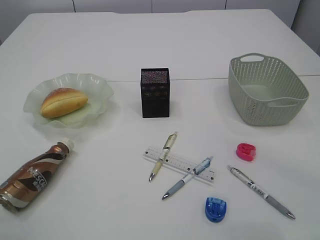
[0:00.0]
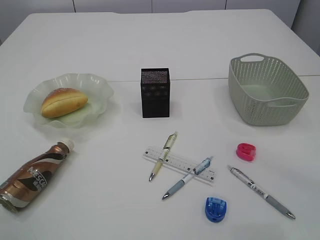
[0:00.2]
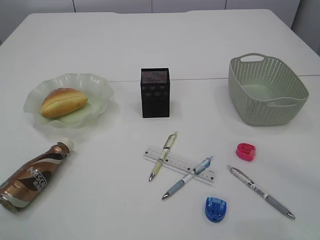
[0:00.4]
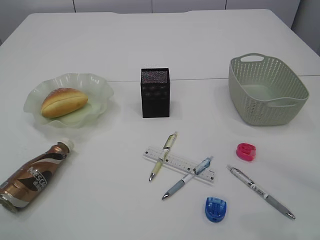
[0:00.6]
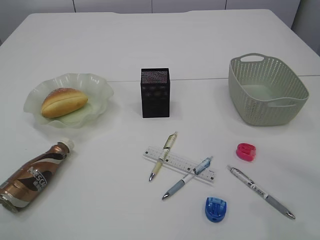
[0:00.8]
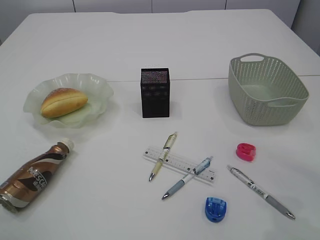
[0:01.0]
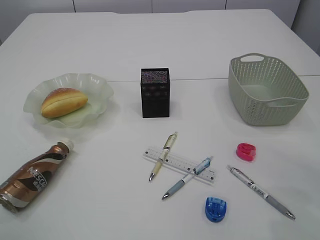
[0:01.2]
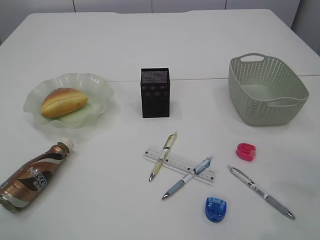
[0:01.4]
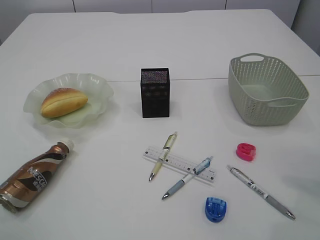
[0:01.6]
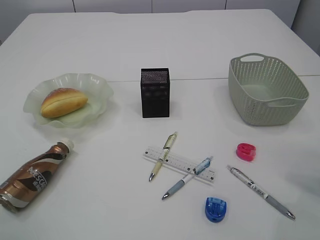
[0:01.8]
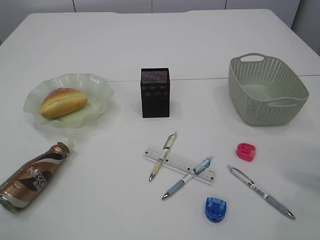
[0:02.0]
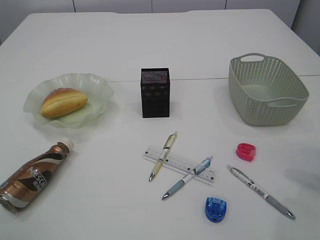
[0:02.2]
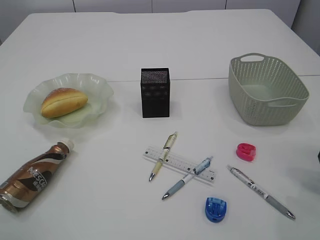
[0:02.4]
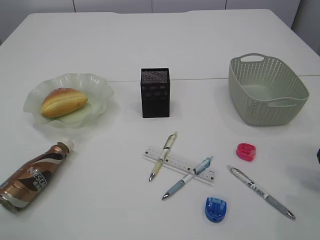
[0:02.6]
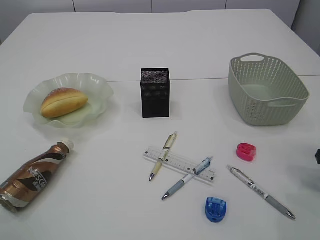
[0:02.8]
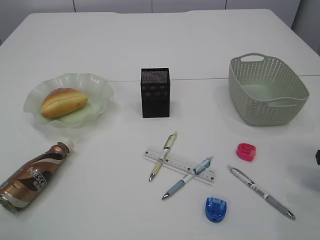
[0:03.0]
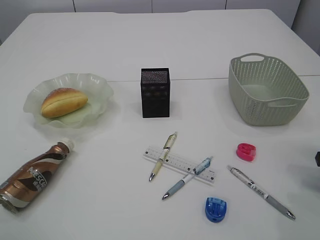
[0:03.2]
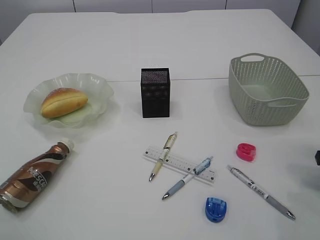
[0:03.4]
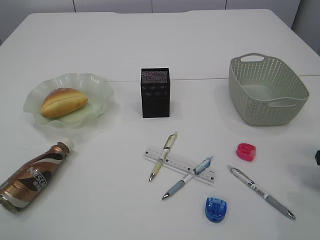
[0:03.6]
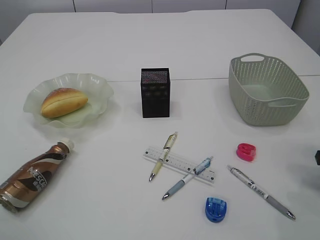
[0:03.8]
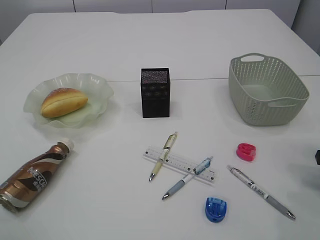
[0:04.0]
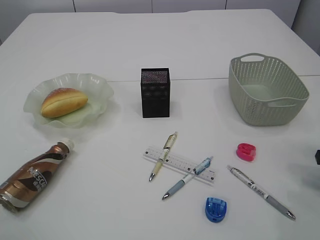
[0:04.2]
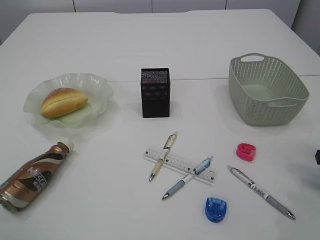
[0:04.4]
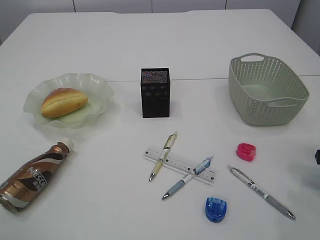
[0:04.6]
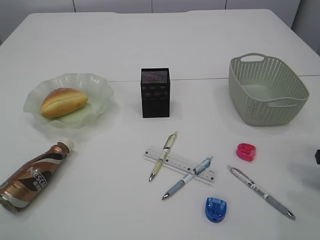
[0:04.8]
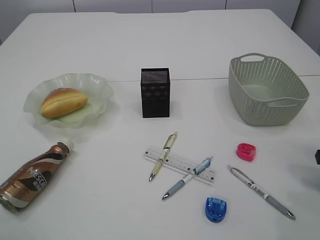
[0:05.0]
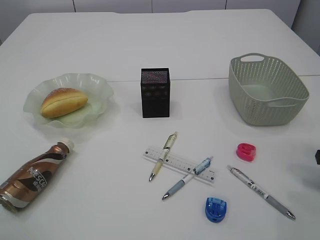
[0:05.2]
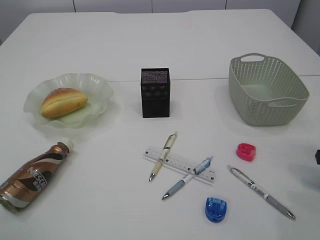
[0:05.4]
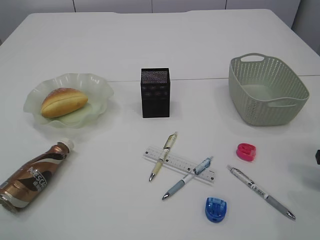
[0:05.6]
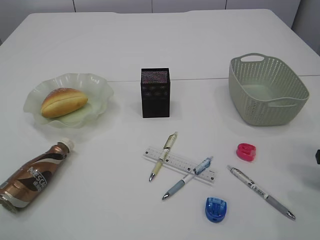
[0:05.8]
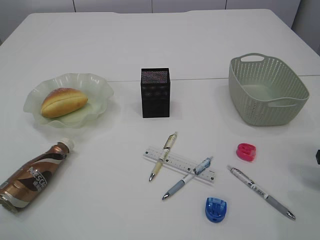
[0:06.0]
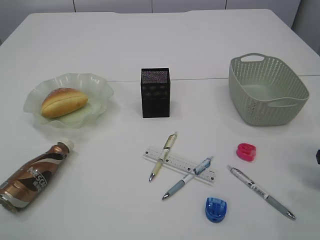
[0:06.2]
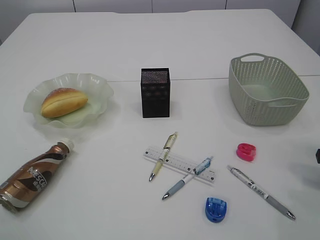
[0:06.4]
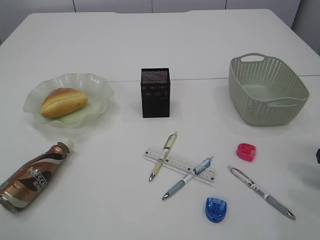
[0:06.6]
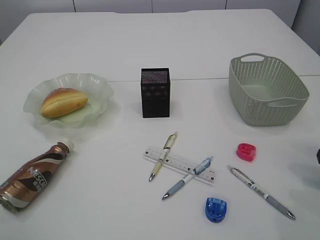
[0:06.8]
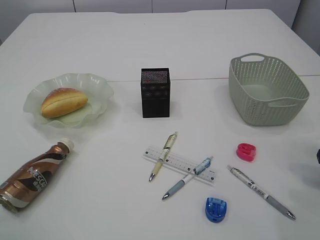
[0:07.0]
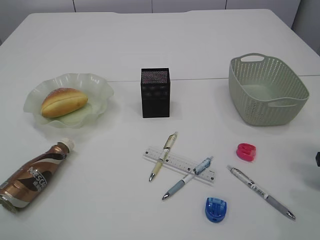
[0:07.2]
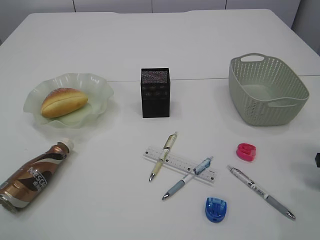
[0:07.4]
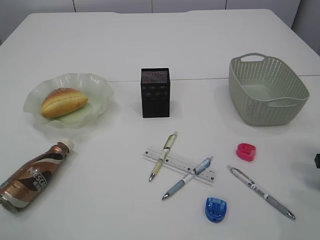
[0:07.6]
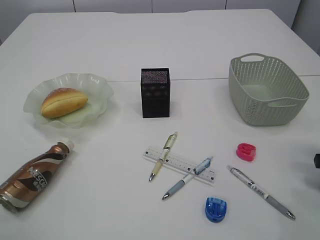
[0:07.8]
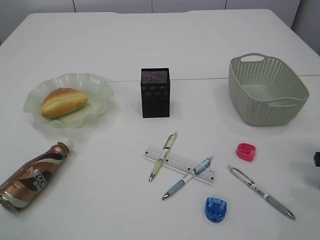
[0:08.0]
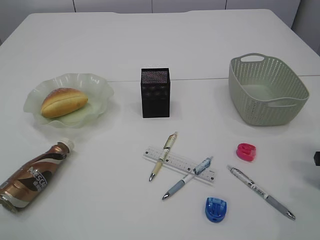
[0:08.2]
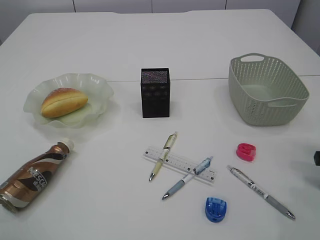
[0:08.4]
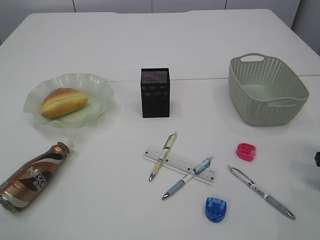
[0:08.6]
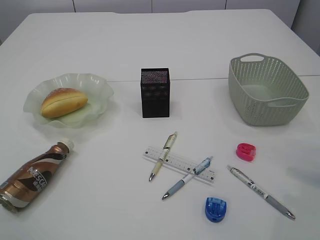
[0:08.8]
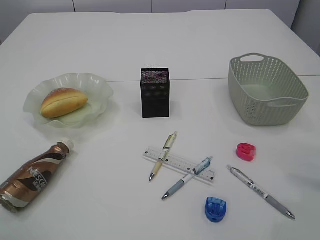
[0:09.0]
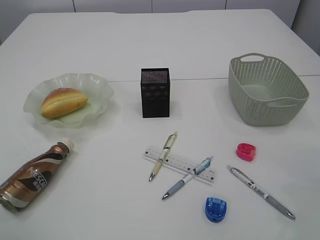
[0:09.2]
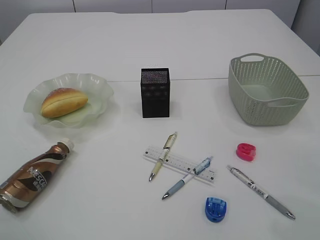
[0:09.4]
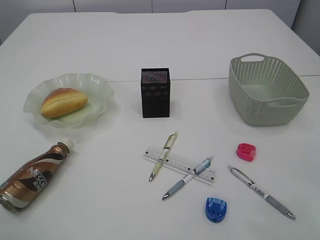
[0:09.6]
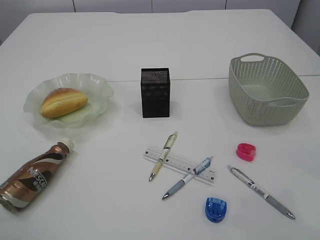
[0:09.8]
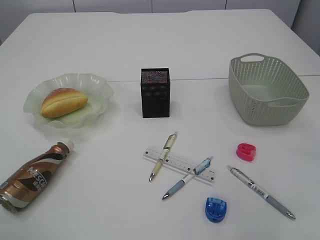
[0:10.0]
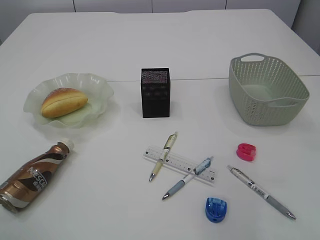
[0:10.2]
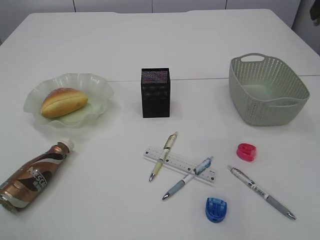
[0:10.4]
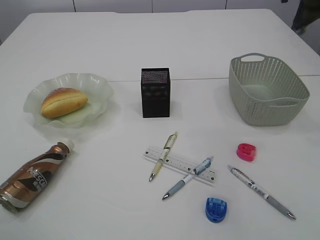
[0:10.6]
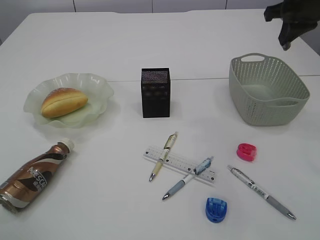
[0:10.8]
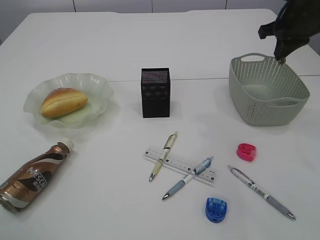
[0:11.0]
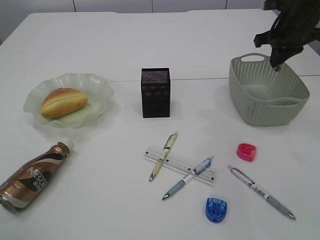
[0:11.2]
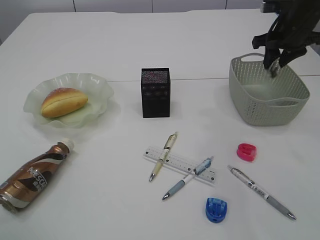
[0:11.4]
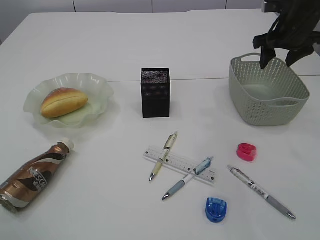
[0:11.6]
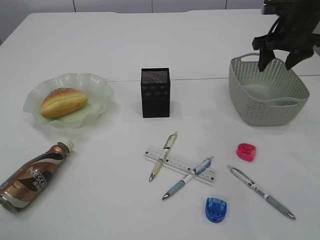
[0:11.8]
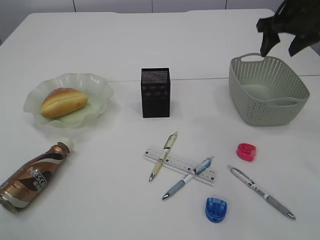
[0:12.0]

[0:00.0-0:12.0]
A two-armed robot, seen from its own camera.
0:03.0 to 0:07.6: Both grippers stay about where they are.
0:09.0 to 0:10.4: The right gripper heads upward and forward, covering roughly 25 cm.
0:10.4 to 0:12.0: The right gripper travels downward and forward by some 10 cm, and opens its fingers.

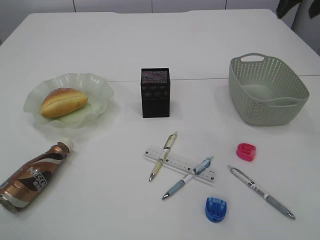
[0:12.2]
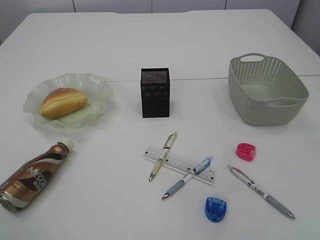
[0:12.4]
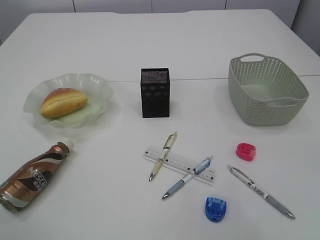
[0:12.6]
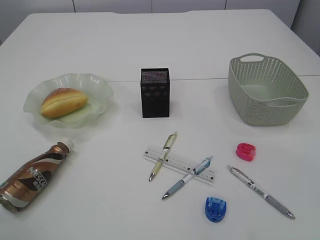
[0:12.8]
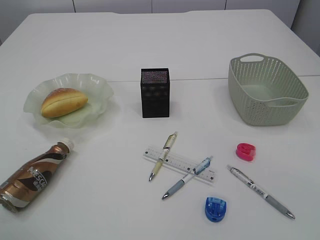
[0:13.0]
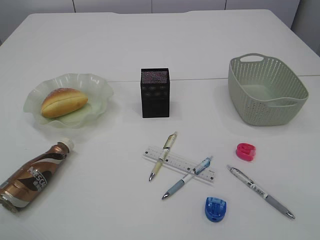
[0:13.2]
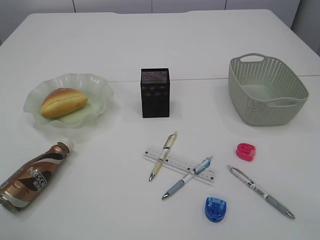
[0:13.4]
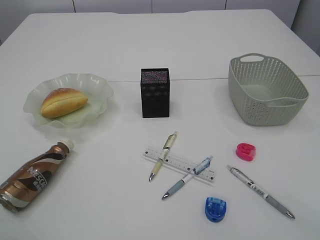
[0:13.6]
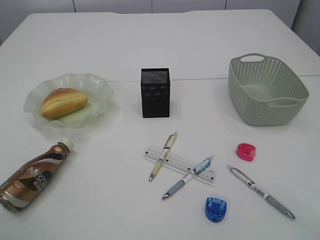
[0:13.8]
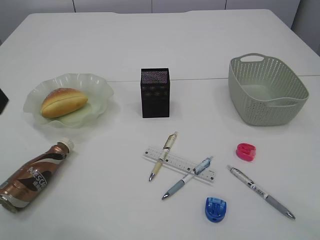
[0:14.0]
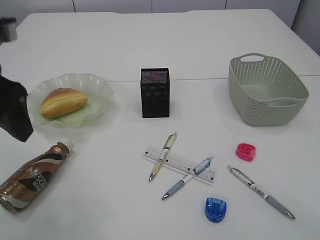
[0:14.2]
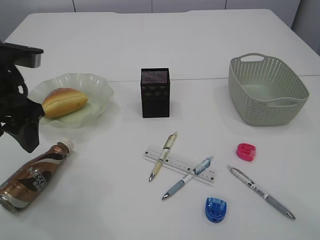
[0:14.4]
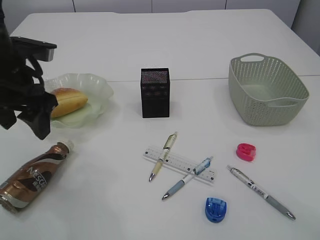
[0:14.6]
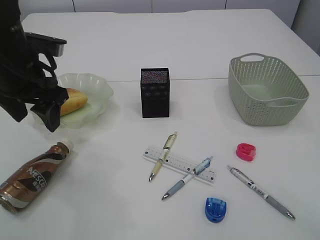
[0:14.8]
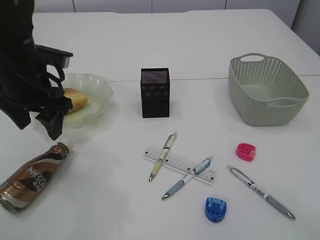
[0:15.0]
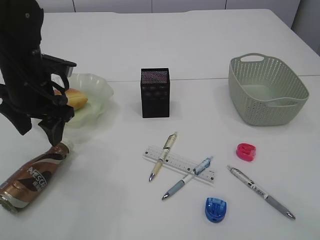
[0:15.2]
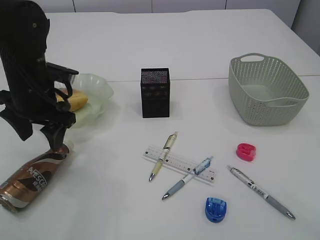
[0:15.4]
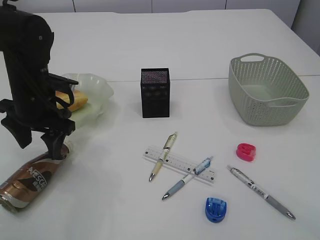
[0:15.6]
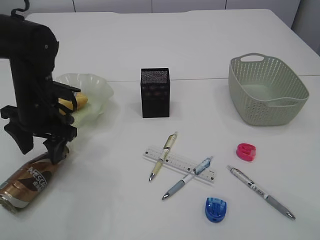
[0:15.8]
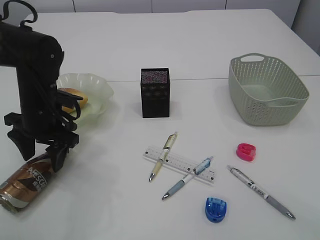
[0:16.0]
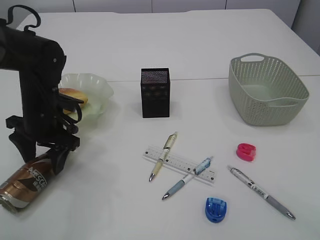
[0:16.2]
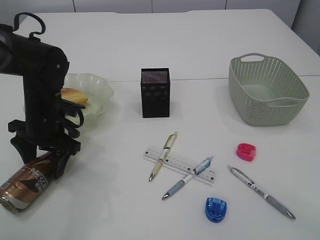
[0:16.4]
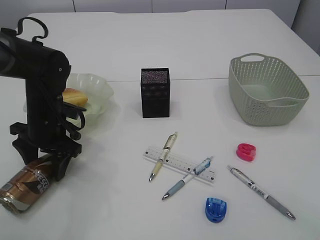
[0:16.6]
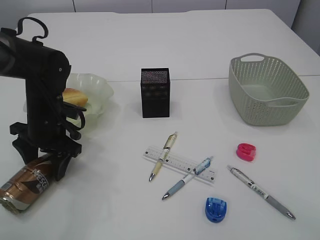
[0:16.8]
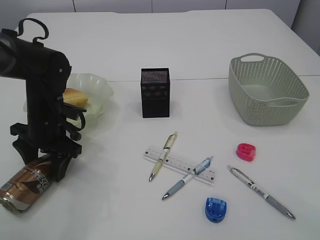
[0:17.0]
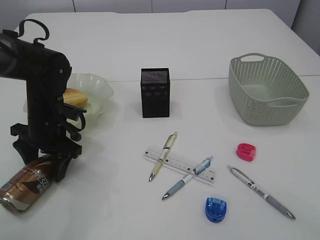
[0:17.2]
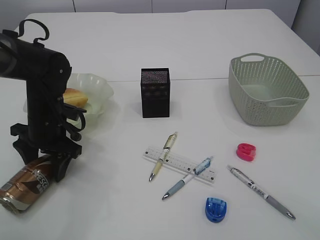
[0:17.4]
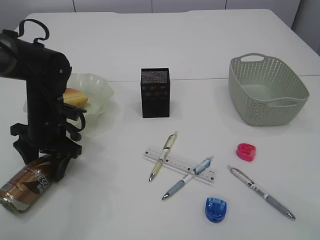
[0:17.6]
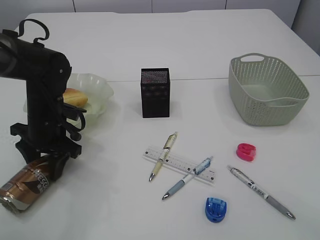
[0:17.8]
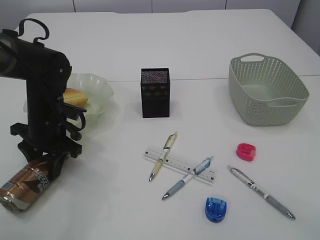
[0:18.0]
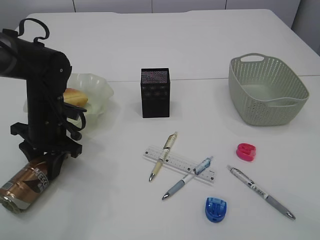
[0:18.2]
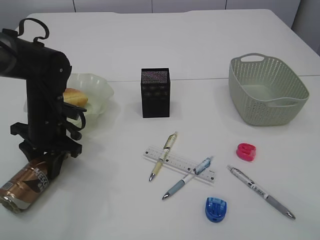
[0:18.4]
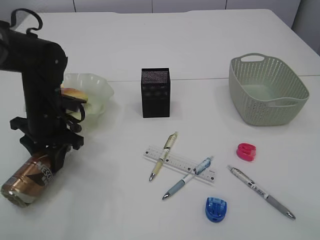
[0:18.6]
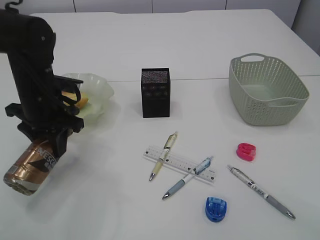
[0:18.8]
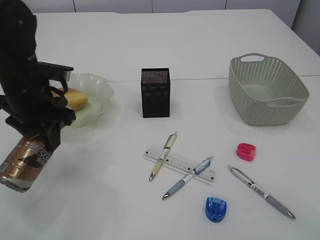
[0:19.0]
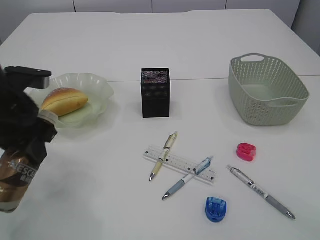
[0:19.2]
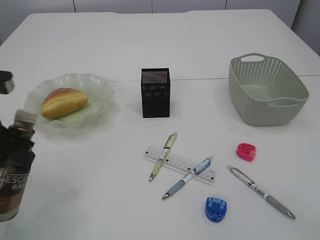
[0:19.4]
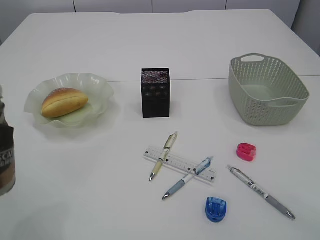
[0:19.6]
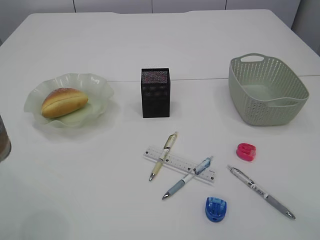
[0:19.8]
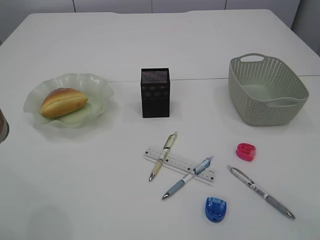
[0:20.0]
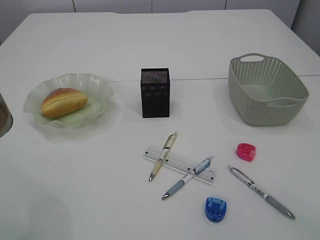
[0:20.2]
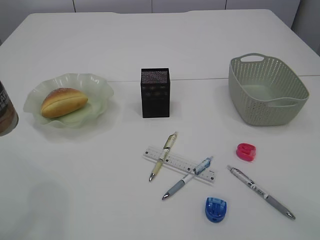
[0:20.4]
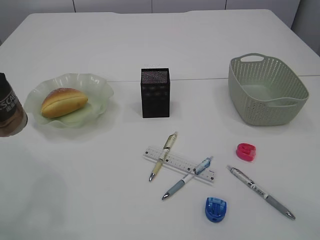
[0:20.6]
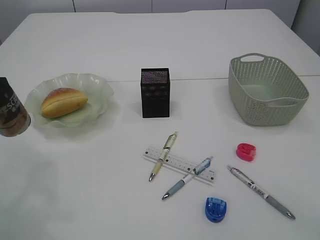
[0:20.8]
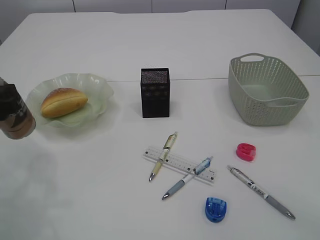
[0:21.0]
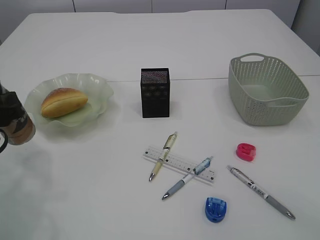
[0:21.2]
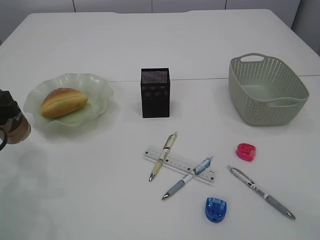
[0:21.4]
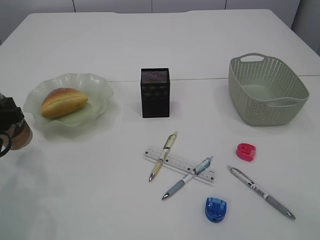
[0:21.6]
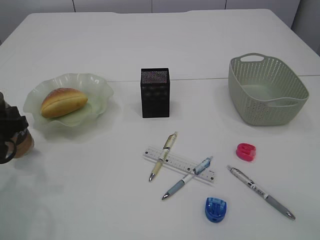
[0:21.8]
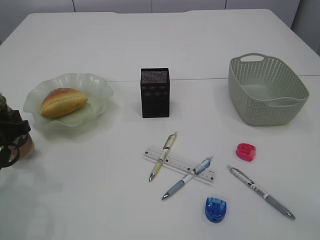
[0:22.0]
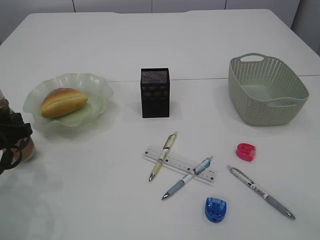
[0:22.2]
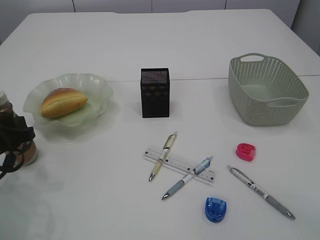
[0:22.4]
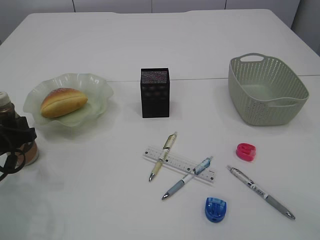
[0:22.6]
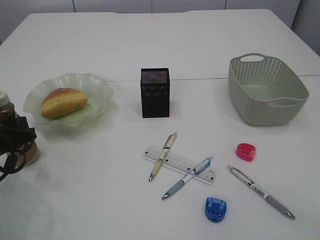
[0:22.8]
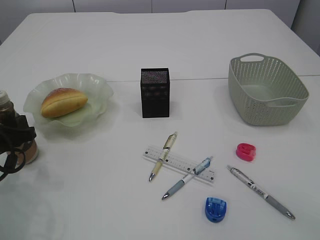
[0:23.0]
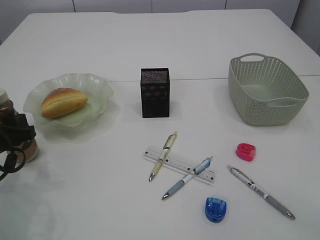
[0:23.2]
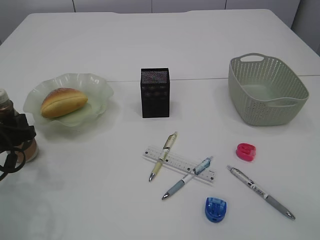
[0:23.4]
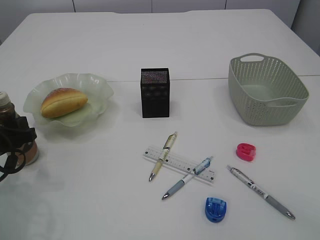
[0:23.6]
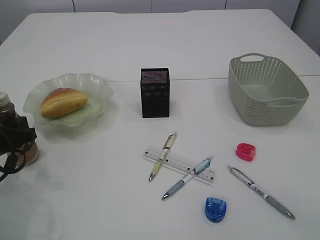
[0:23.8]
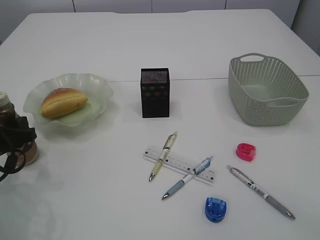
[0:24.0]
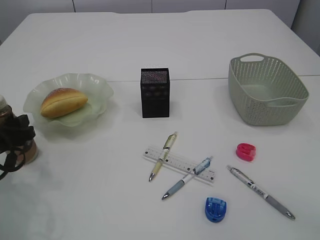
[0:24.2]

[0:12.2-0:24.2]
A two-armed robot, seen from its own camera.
Step, 0:12.2 to 0:19.0: Pick up the bottle with the left arm.
0:13.8 to 0:15.2: The left gripper travels forward and downward by about 25 cm.
0:15.2 to 0:16.6: The left gripper moves downward, roughly 10 cm.
0:16.6 to 0:18.2: The left gripper closes up.
0:18.2 to 0:19.8: The left gripper moves backward and upward, roughly 25 cm.
0:19.8 to 0:21.2: The left gripper moves downward and forward, about 15 cm.
0:21.2 to 0:22.6: The left gripper travels downward by some 5 cm.
0:22.6 to 0:24.2: The left gripper opens up.
